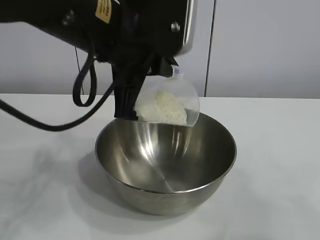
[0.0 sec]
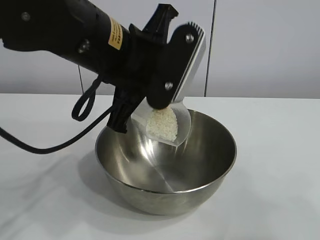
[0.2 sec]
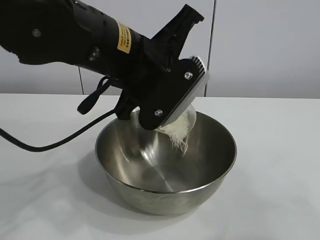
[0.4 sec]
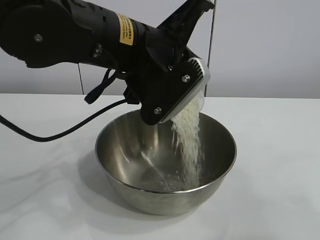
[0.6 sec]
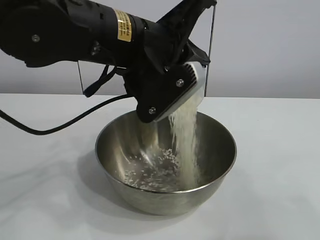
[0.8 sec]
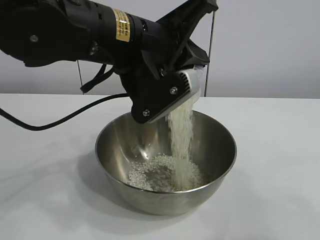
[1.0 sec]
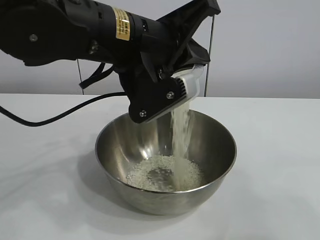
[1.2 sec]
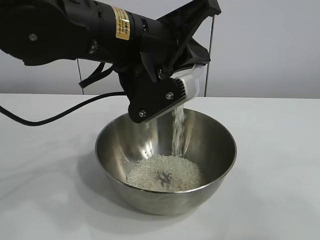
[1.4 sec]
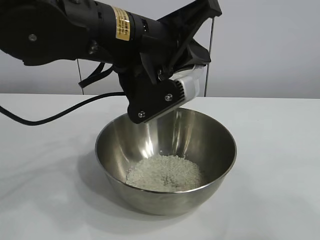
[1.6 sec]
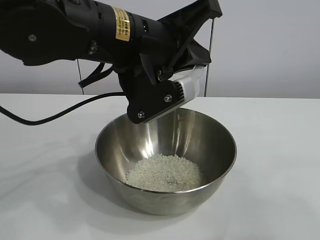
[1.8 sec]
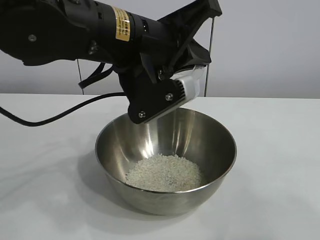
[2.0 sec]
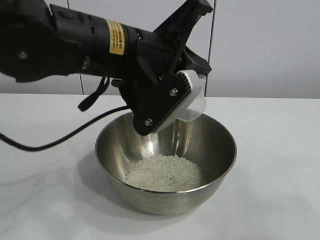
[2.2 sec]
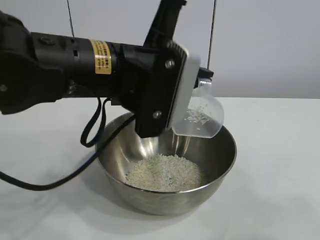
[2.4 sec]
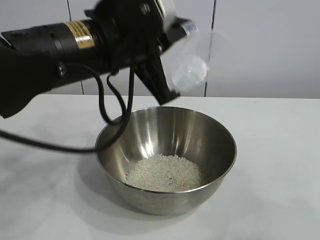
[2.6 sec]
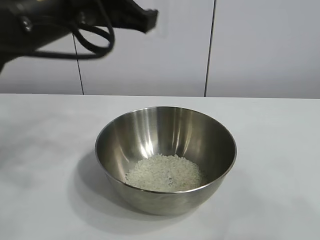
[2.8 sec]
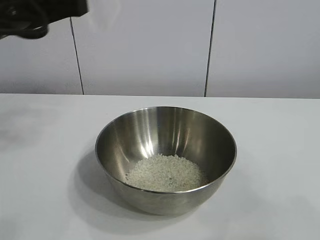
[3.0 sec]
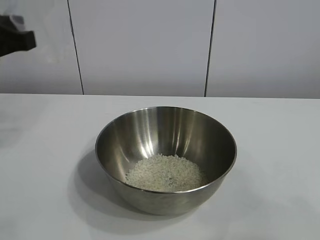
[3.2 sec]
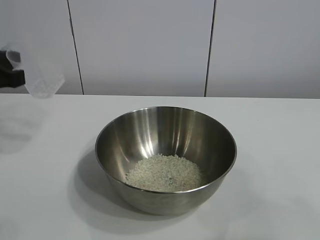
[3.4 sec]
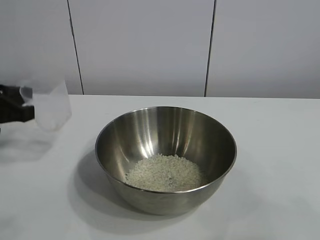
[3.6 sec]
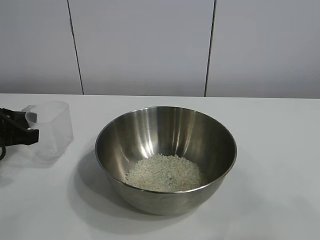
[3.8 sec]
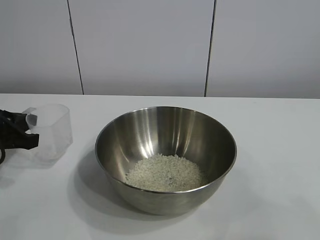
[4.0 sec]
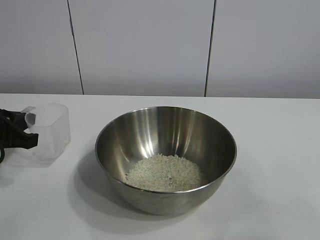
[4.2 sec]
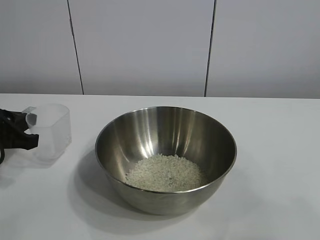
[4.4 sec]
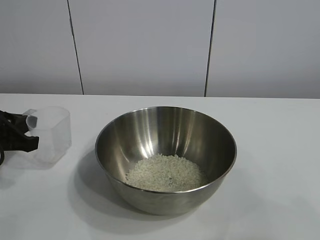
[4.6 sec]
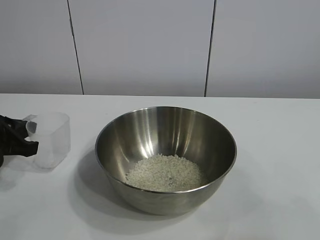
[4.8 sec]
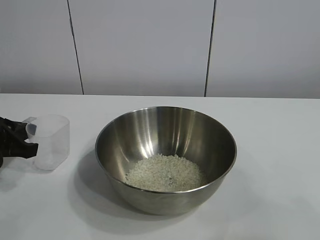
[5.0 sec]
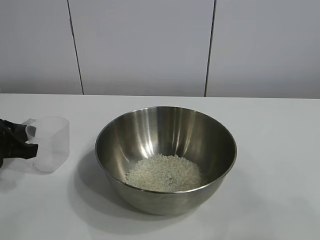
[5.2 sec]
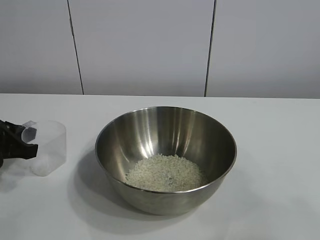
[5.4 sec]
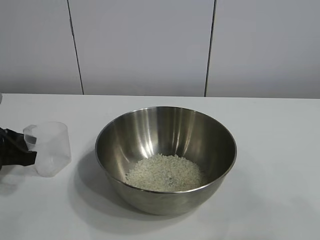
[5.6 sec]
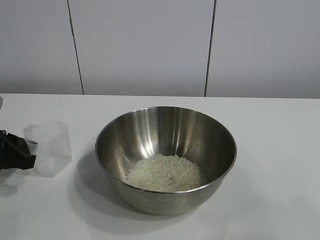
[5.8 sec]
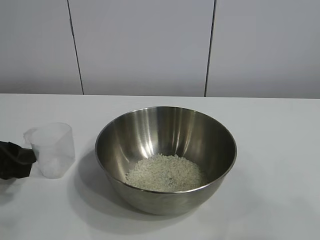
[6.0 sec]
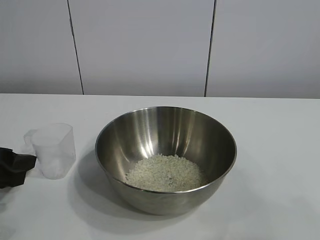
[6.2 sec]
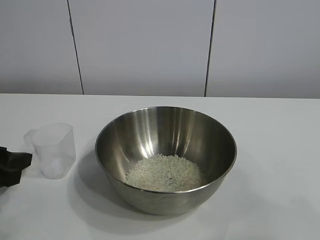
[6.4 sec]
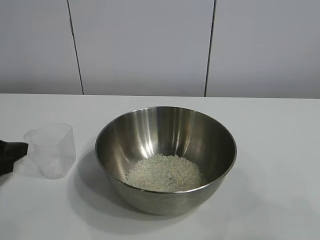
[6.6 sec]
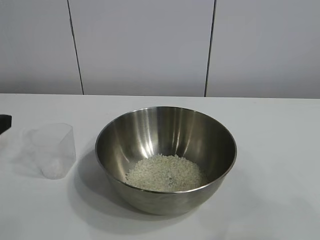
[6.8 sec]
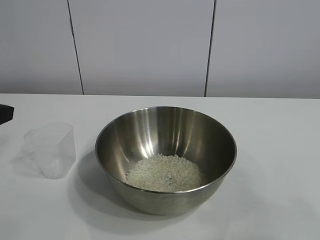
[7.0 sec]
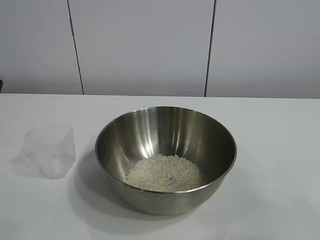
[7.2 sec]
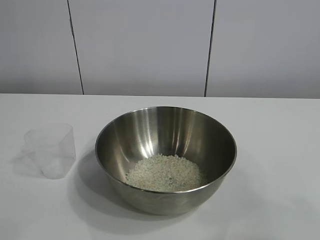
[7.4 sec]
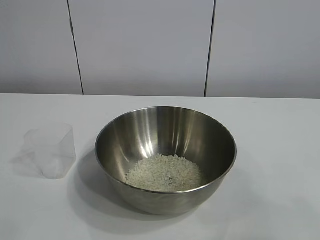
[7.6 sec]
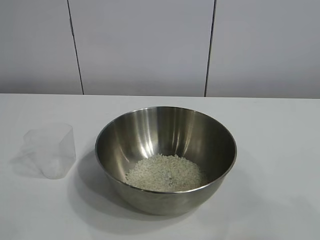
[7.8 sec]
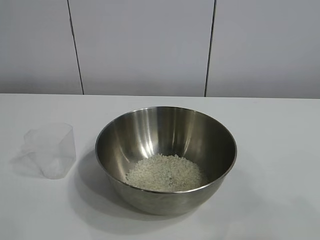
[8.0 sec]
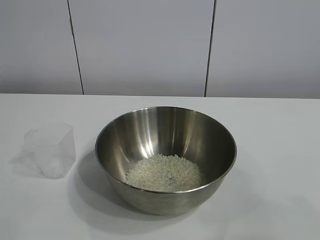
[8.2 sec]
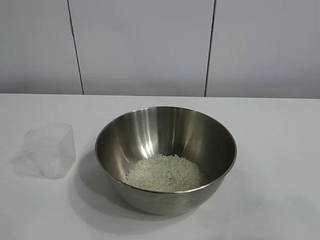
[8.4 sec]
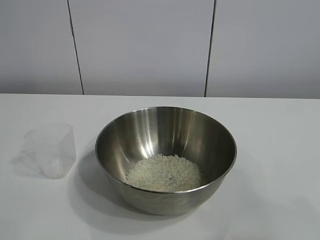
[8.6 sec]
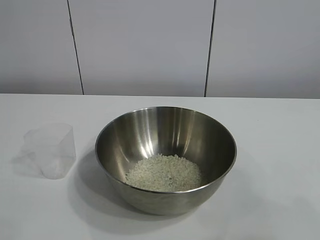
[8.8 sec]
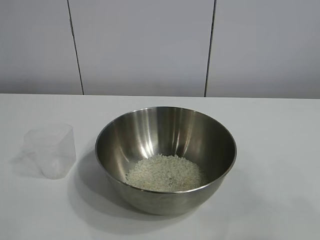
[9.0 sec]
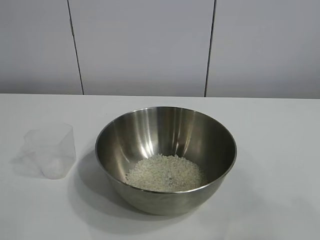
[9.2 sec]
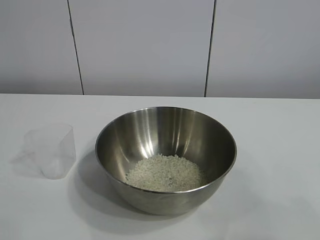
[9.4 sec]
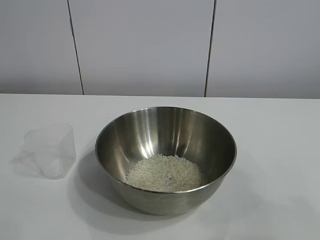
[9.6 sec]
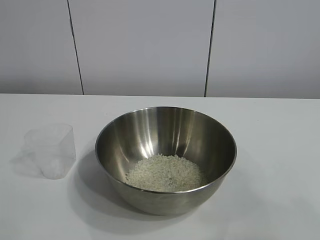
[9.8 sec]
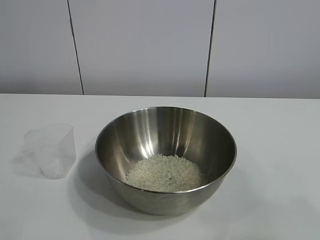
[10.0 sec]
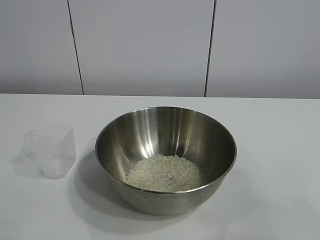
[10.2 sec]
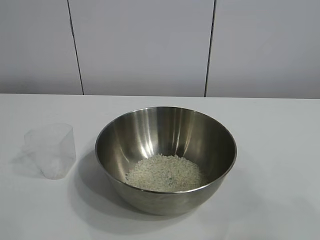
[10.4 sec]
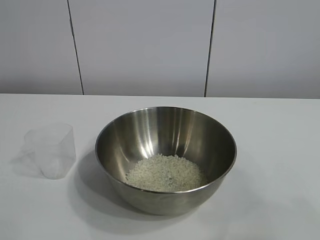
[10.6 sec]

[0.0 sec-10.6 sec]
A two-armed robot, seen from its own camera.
Task of the whole recording: the right gripper grasp the rice container and place it in the center of the table, the left gripper grasp the rice scoop and pour the rice into the rice container.
Step, 0.0 sec to 1.6 sec: Pour the rice from the cup into the bowl with the left gripper.
Step, 1.8 sec to 5.8 sec: Place the cup on the table with the left gripper.

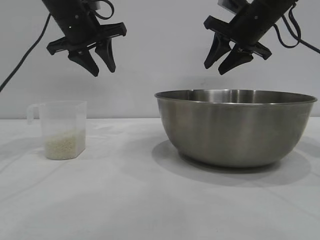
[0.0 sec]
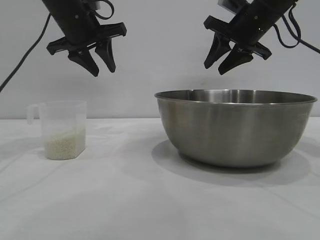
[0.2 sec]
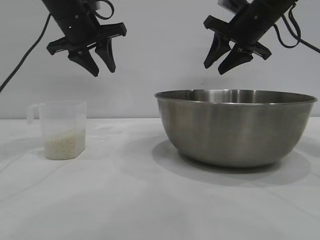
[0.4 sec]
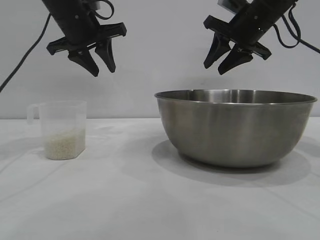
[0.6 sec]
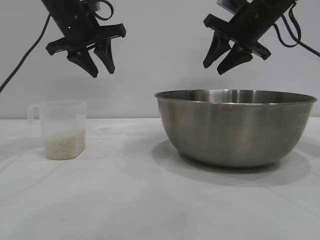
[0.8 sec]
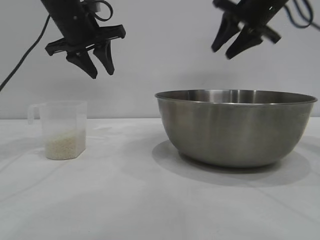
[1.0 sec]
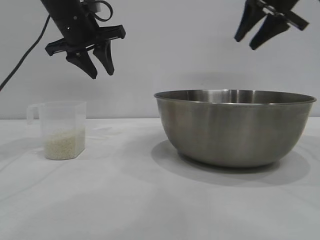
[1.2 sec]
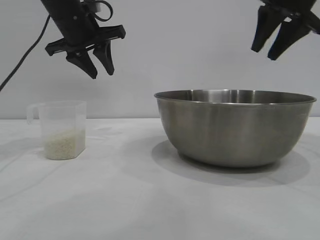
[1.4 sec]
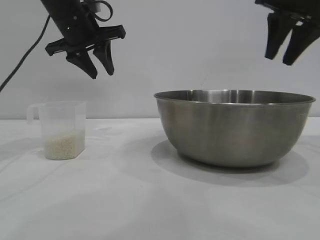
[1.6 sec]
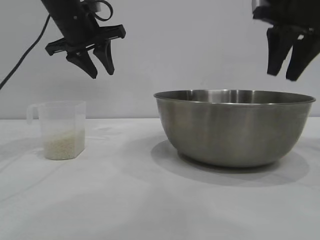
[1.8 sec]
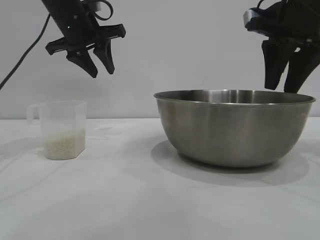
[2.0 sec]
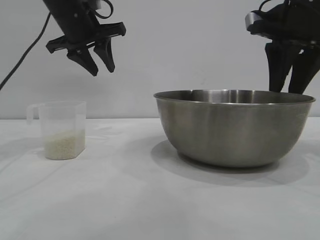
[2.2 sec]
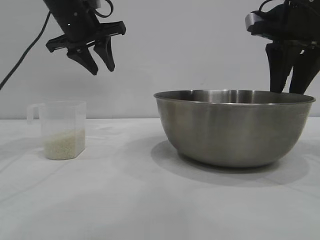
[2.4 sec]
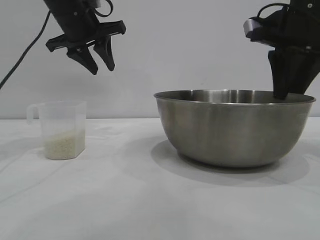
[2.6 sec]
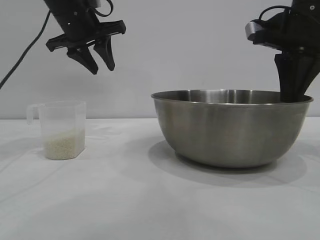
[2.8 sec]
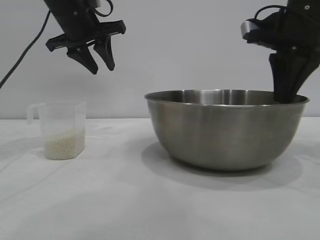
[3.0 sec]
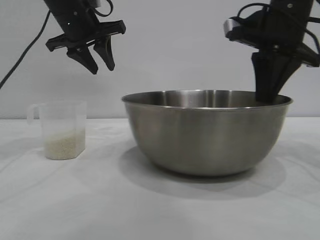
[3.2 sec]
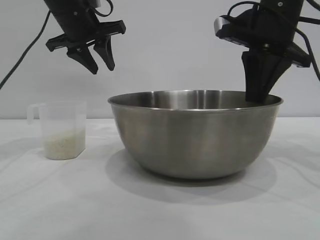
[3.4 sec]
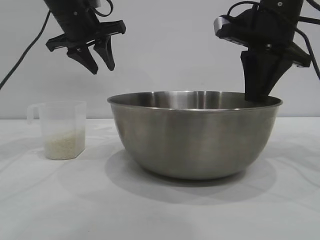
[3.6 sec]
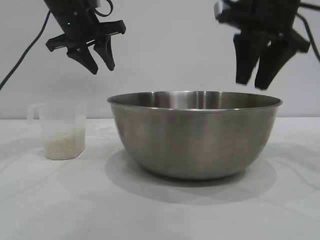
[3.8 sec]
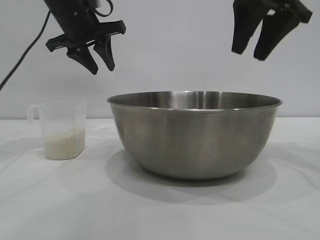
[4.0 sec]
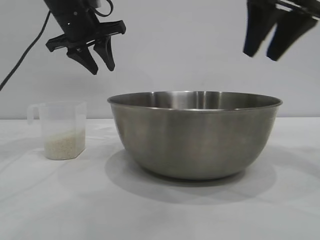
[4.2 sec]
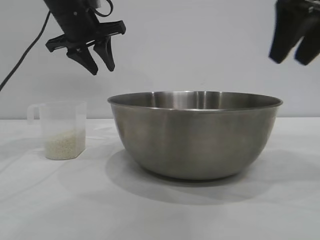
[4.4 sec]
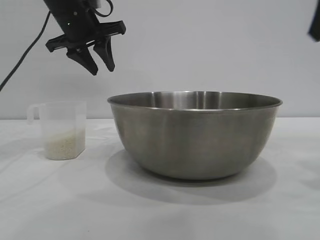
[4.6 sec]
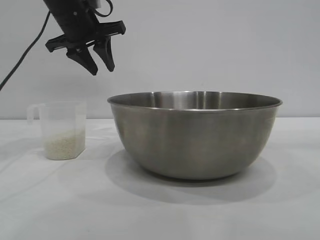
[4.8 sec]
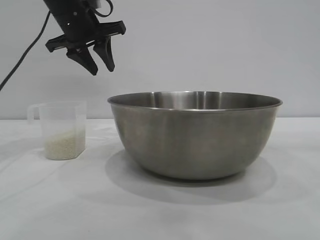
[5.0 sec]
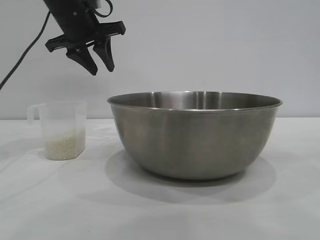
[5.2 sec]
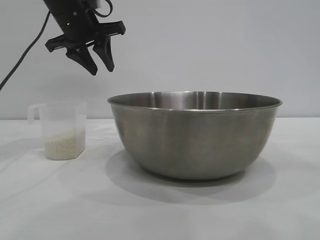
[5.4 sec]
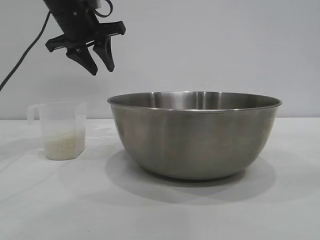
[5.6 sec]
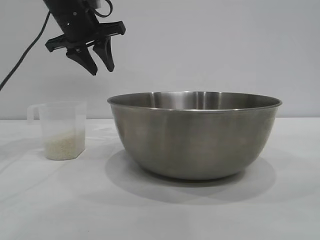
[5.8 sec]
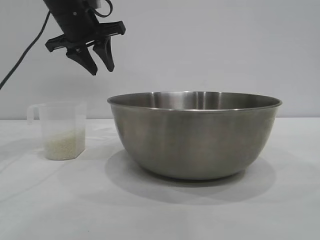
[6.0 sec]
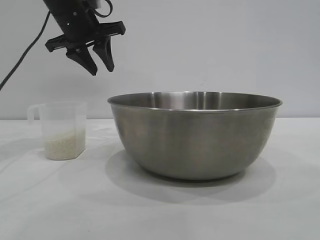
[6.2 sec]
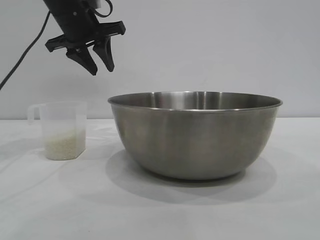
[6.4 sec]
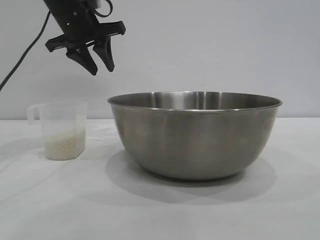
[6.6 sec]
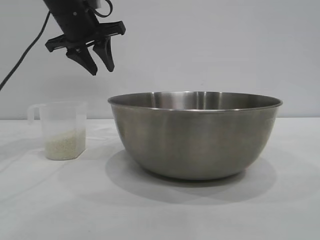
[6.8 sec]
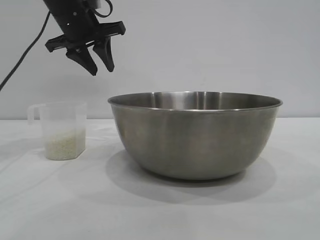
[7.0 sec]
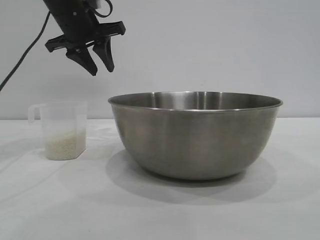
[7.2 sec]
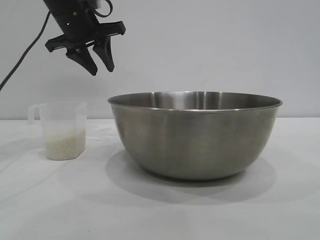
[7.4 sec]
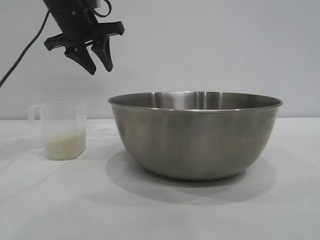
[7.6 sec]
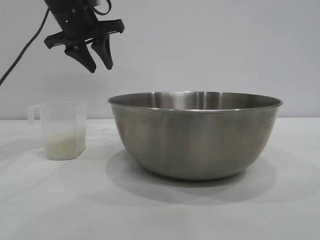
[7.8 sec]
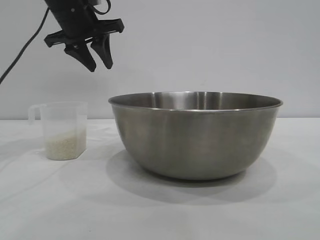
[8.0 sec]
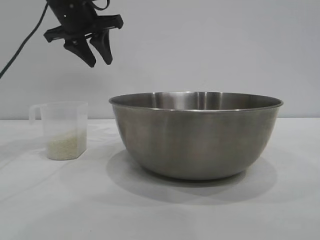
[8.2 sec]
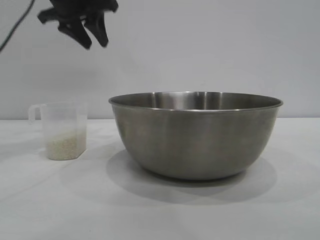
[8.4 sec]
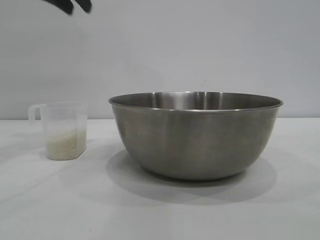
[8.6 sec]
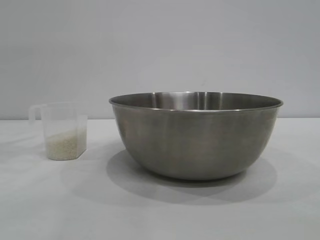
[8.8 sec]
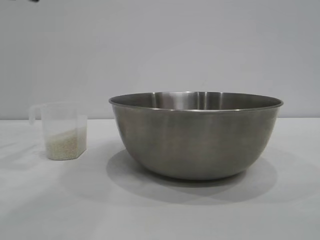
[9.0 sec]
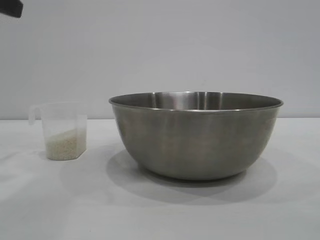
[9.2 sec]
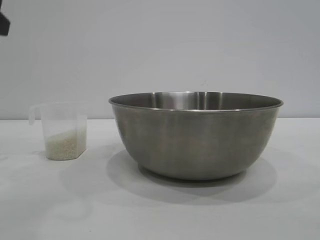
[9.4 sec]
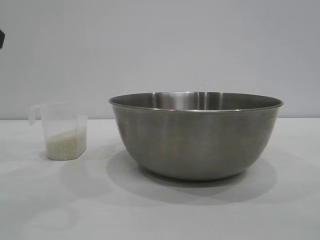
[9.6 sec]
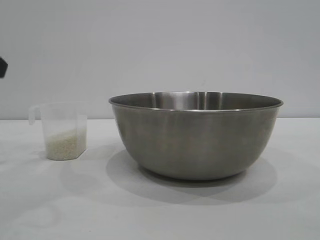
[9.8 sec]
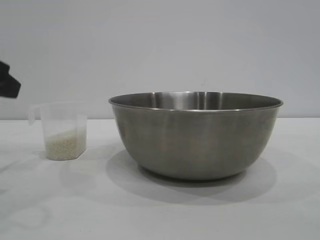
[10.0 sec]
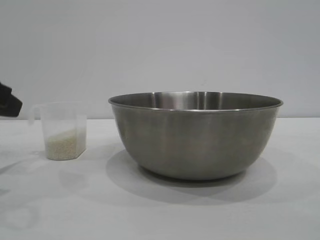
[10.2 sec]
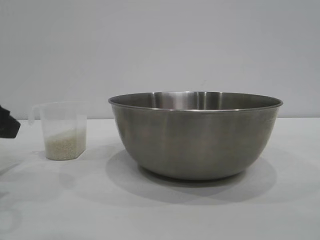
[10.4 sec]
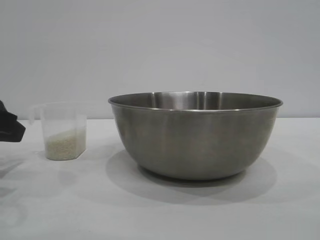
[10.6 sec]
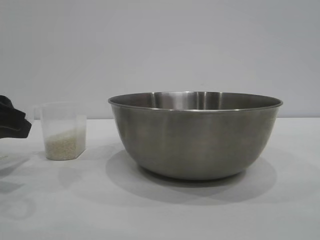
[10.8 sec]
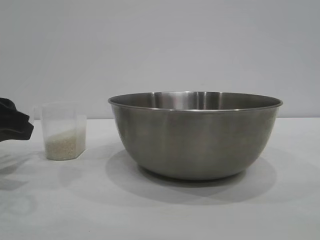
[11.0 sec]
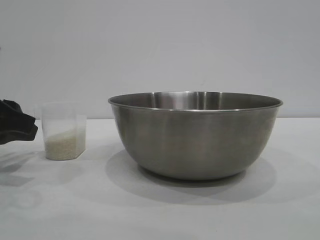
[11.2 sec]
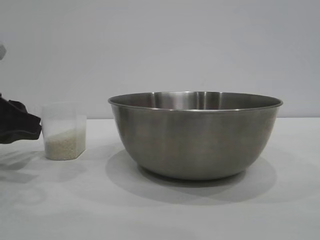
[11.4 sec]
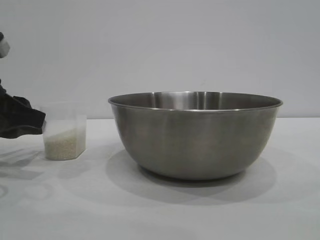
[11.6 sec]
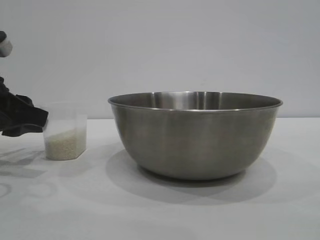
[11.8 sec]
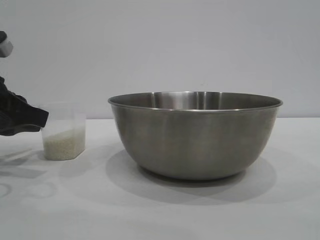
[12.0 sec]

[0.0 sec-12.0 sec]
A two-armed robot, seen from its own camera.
Task of the whole recording: the right gripper grasp the rice container and place it in the center of the table, the left gripper grasp the rice scoop and pour the rice into the rice container.
Step, 0.0 sec to 3.8 sec: Move the bowl to the center of view with the right gripper.
